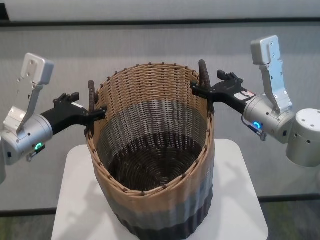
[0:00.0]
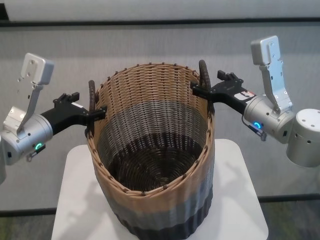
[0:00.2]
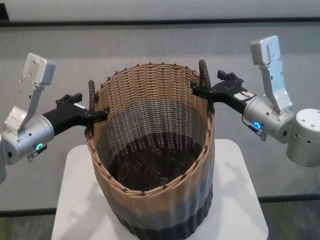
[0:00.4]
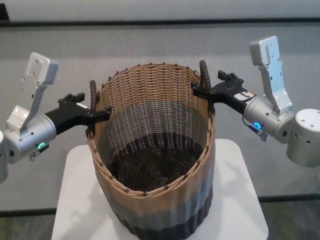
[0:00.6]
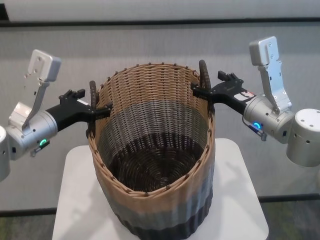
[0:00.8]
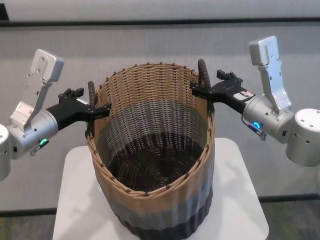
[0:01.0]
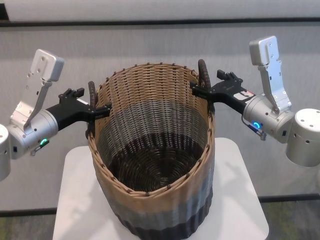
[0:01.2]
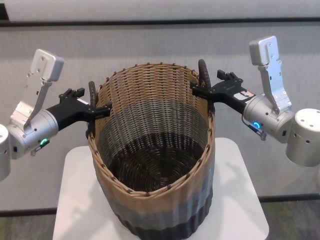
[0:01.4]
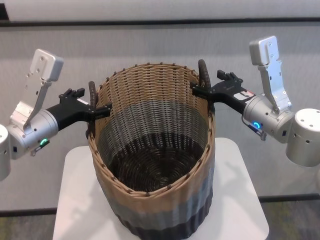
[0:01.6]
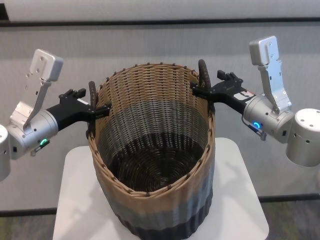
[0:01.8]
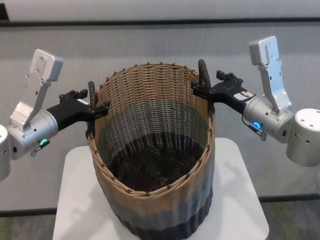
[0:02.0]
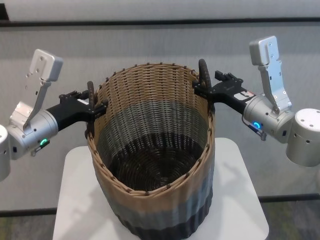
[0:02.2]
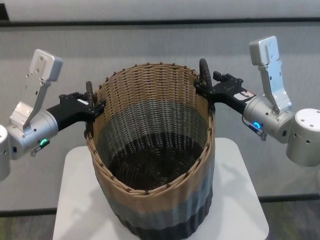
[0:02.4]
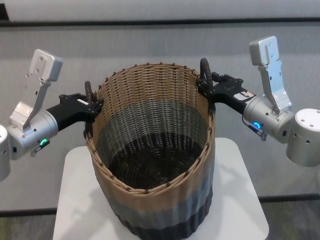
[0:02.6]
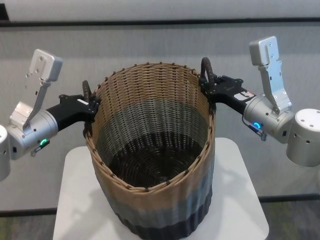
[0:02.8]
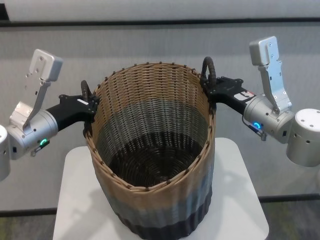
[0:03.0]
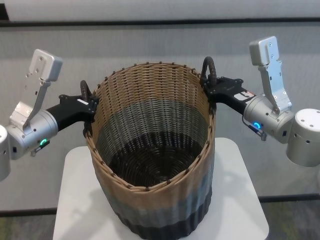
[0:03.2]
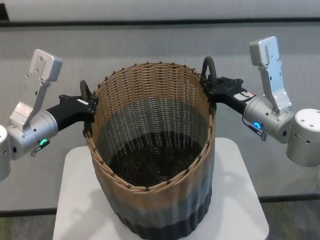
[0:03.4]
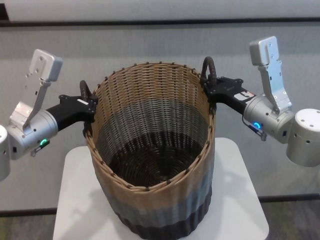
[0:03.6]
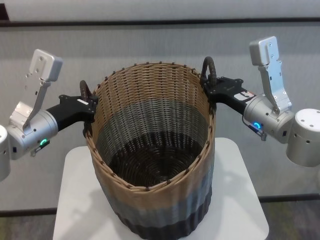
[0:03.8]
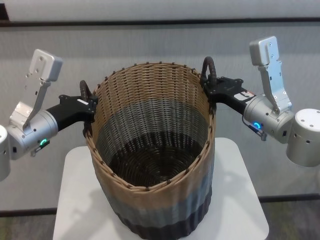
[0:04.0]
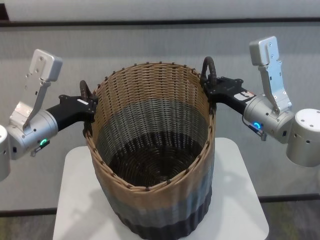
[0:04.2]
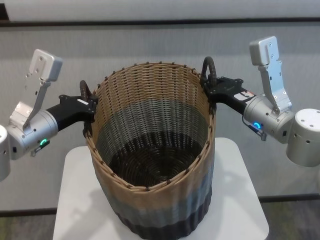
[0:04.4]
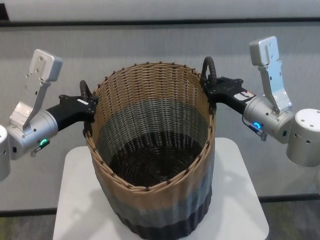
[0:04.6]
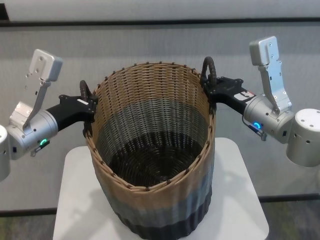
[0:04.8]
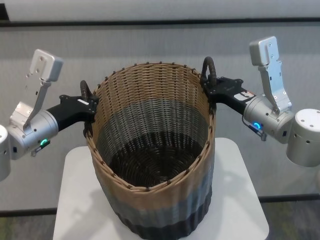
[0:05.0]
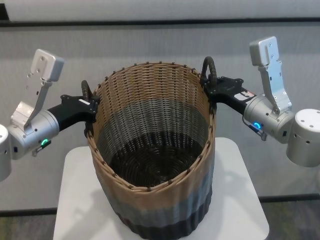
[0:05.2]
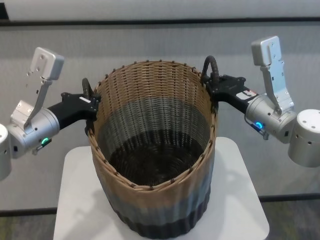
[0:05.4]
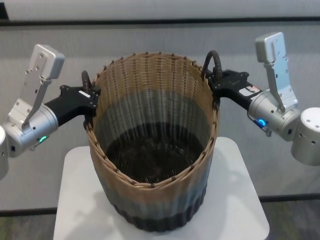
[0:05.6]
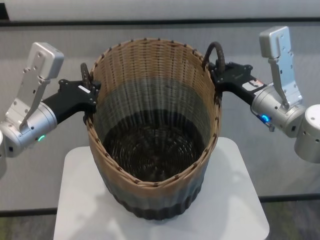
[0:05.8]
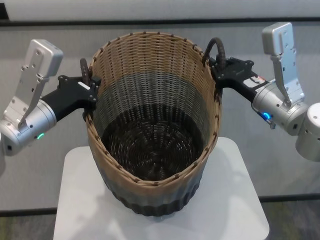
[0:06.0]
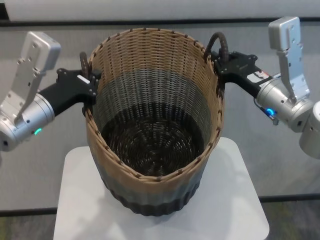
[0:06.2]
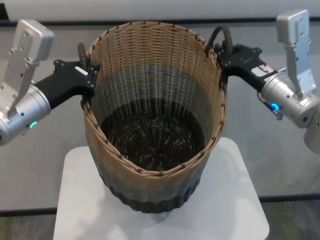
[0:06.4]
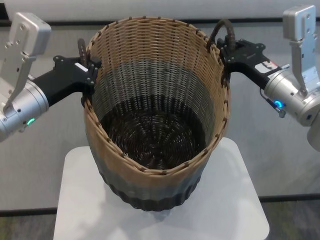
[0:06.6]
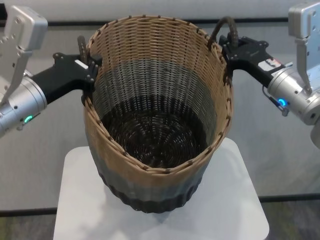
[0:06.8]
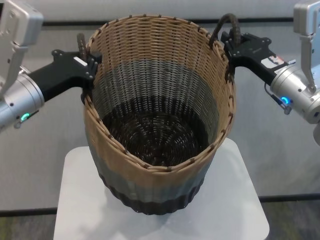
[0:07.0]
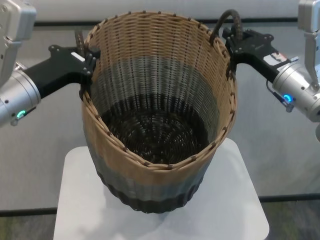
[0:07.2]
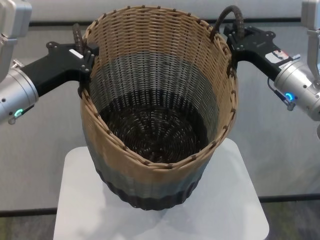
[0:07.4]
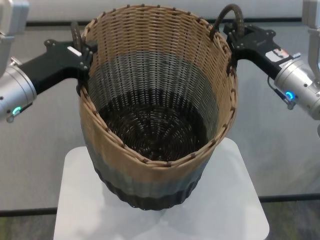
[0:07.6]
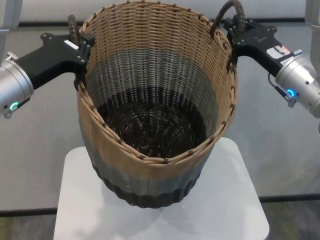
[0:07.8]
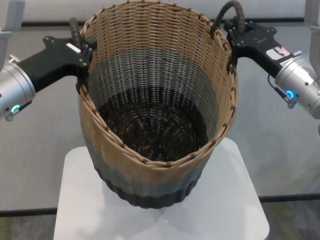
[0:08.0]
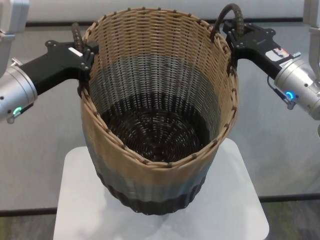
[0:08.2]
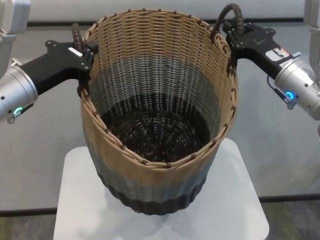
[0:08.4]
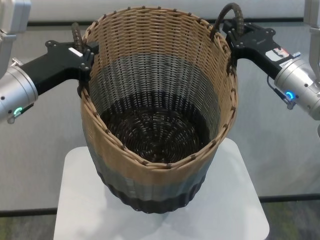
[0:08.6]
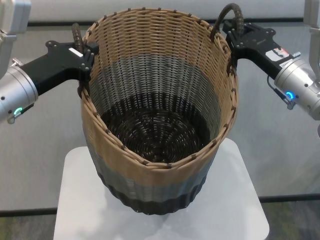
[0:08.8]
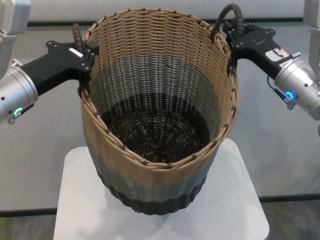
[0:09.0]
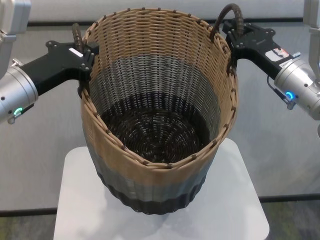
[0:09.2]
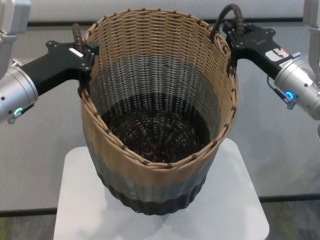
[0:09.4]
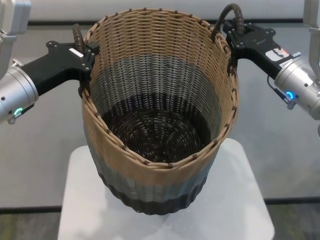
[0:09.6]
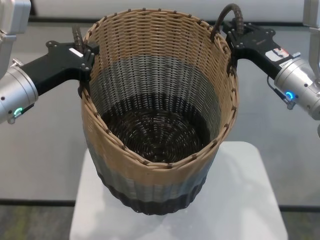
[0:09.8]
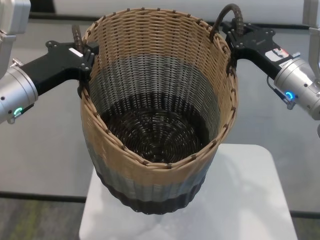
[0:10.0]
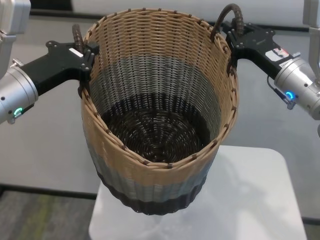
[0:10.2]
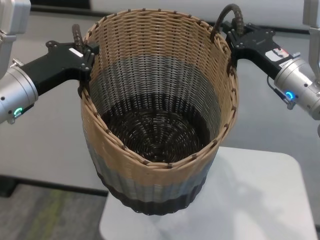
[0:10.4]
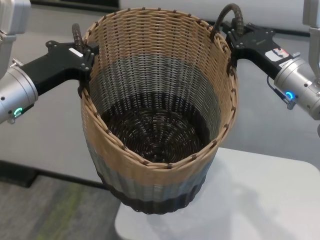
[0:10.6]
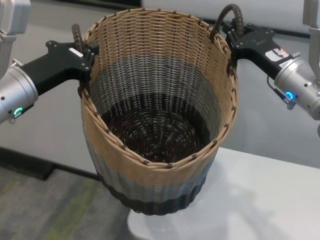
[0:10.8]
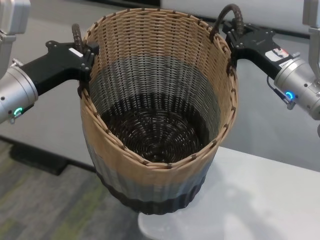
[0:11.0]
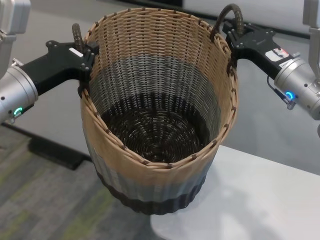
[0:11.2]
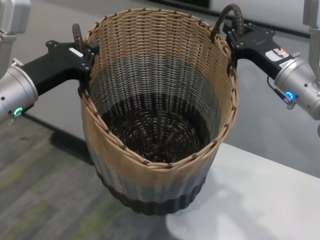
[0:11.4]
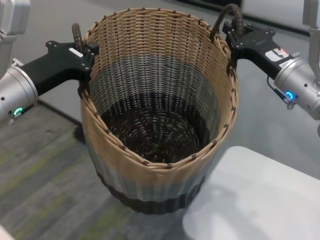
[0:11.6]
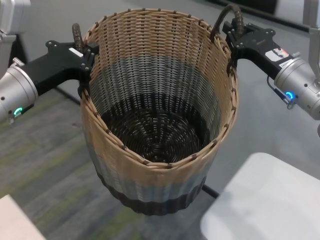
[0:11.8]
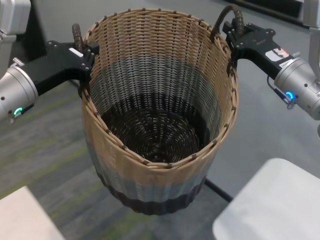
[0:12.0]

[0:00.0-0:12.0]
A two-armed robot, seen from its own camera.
Task of the whole recording: carry the clothes basket in coordination with both hands.
Step, 0:00.0 to 0:04.6: Grasp the basket with both grippers.

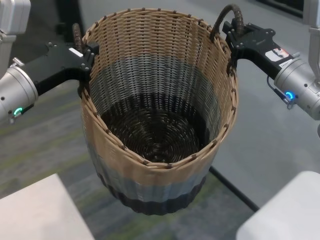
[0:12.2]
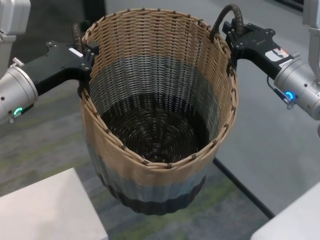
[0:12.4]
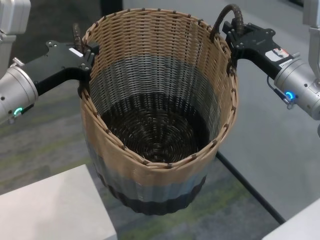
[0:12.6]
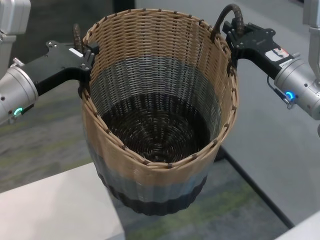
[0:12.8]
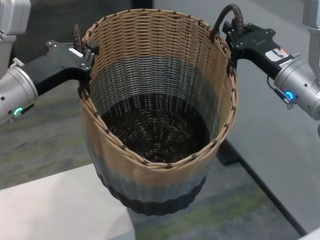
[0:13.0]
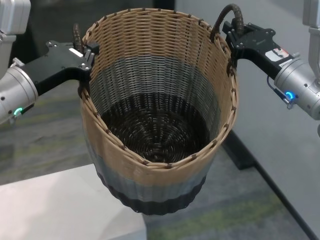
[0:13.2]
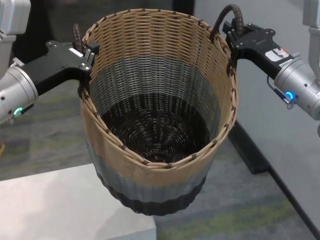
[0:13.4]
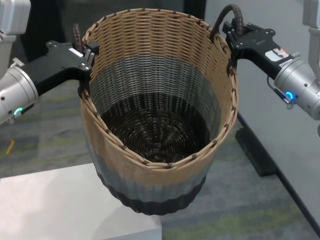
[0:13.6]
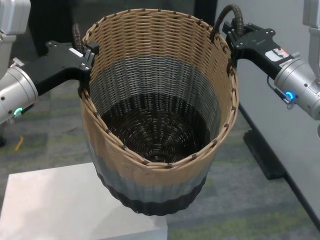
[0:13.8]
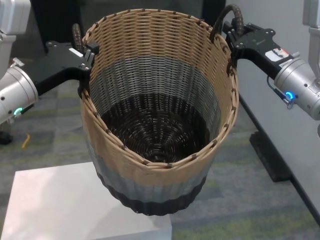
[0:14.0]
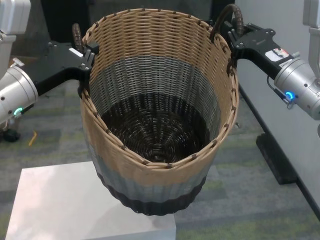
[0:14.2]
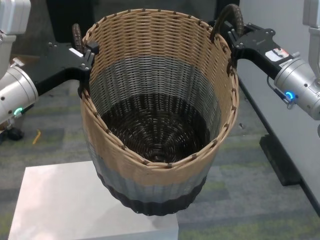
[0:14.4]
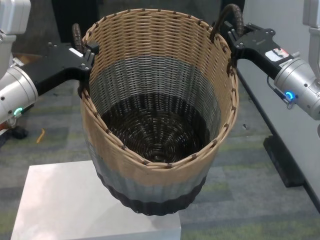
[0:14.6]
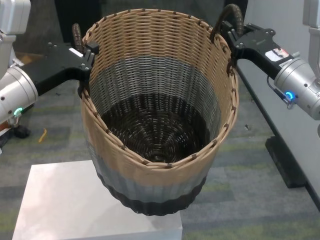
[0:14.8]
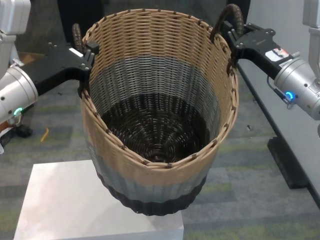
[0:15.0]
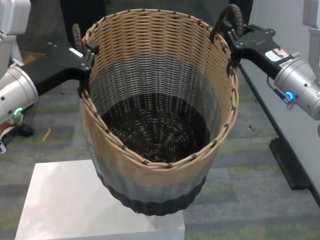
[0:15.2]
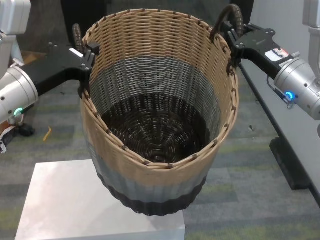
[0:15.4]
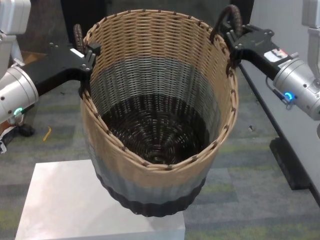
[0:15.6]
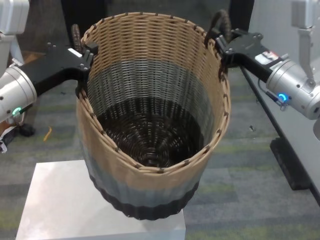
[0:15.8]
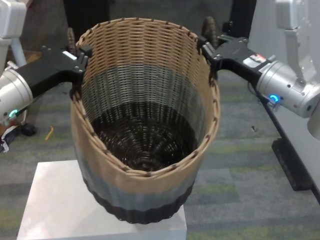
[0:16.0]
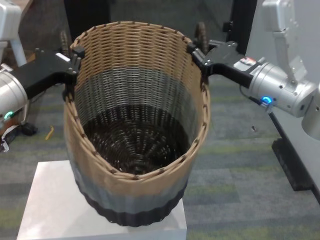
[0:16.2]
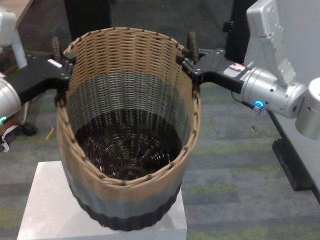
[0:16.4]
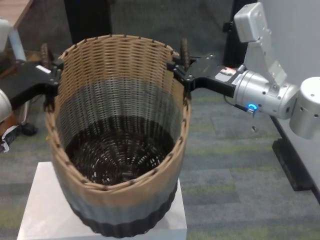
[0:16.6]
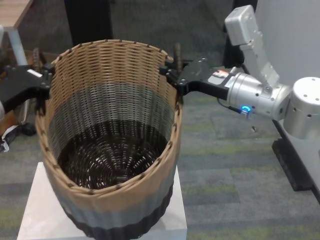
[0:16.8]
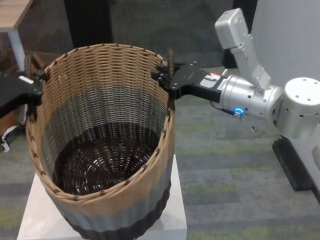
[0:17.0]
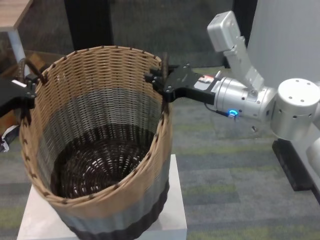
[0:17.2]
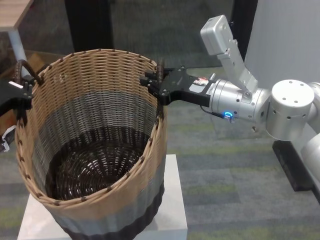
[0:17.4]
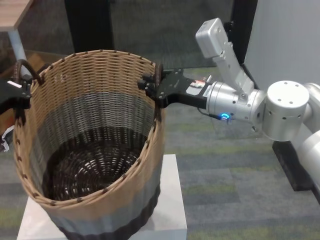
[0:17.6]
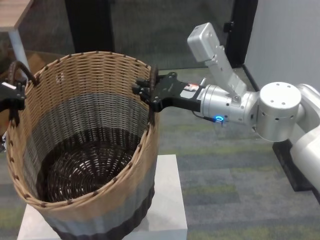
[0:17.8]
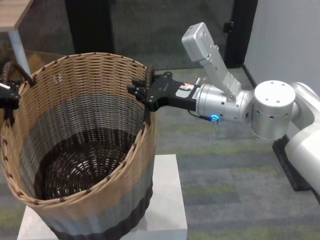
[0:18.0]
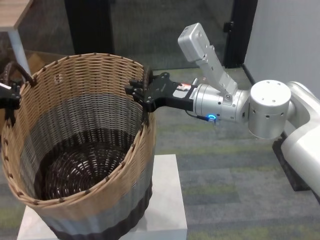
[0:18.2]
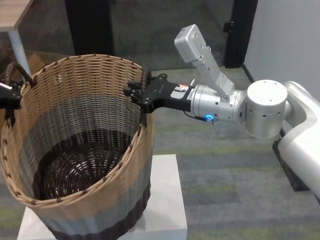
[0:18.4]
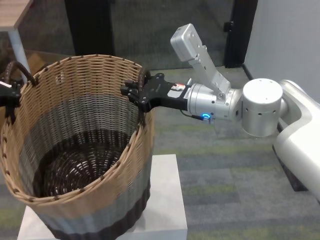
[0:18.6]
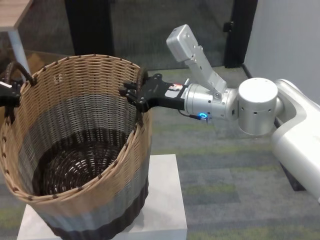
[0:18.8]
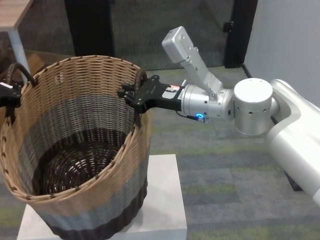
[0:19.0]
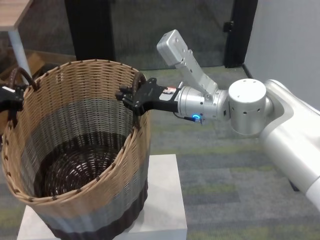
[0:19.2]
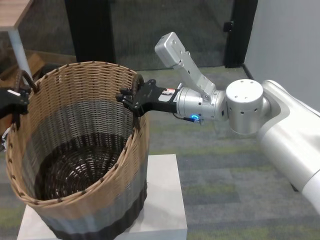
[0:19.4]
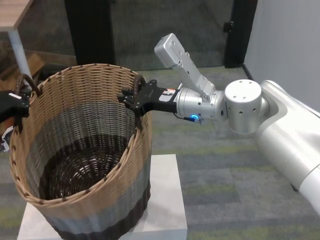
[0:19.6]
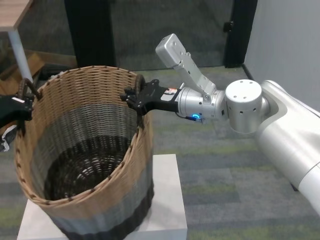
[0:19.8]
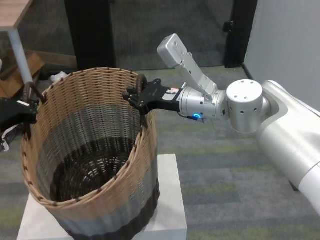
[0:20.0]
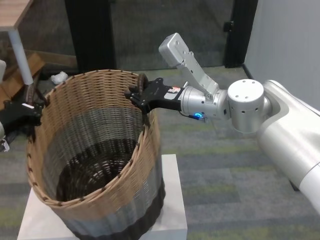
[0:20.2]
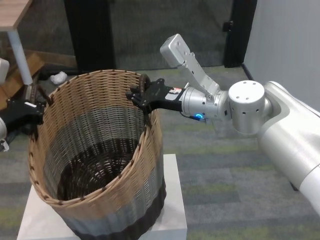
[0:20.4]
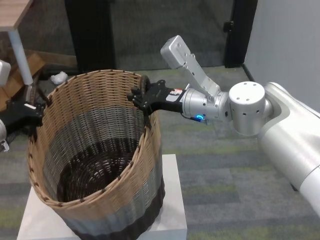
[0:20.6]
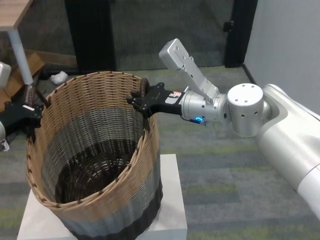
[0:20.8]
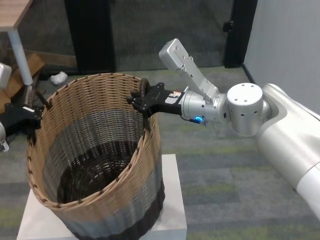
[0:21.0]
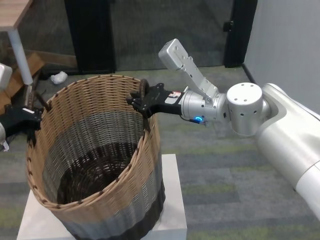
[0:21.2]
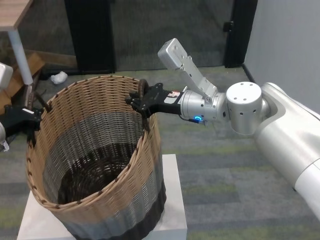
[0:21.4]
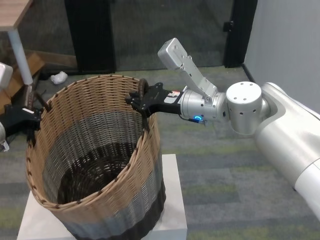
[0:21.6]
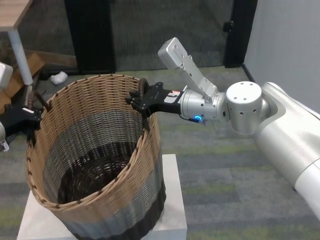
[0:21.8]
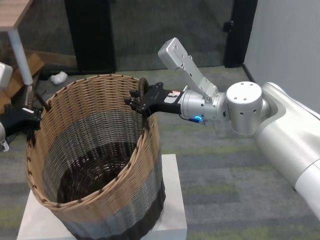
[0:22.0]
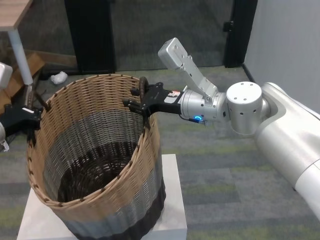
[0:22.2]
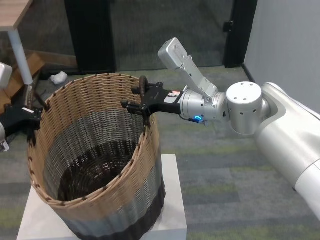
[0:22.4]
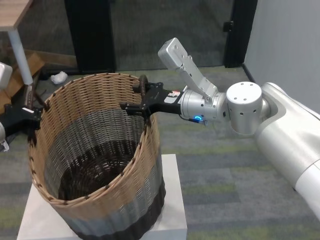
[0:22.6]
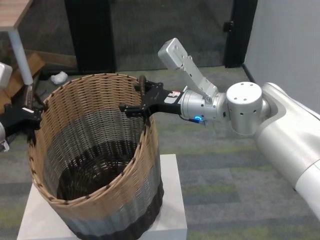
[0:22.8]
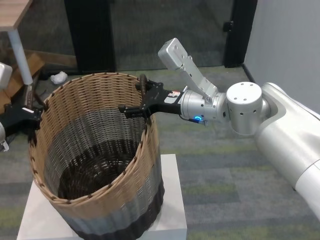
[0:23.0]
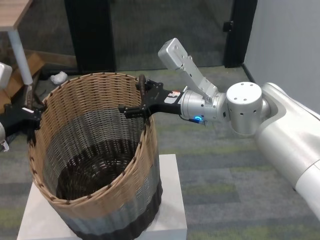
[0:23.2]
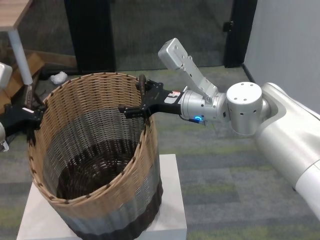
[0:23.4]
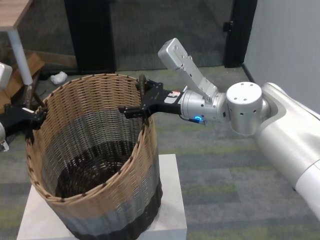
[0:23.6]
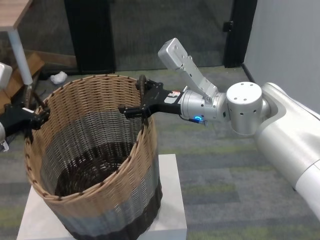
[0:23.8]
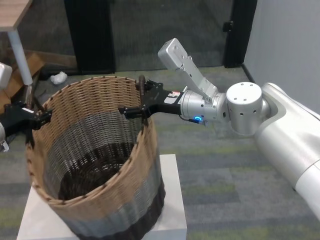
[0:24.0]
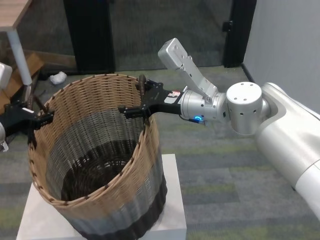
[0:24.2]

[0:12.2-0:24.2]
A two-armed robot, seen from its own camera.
Task of the whole recording: carry the clothes basket in coordination with both hands.
Step, 0:12.2 to 0:15.4: Move the basket above the other table.
Step, 0:15.6 to 0:23.0: Place the basket on the table with right gripper.
